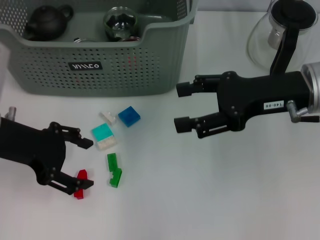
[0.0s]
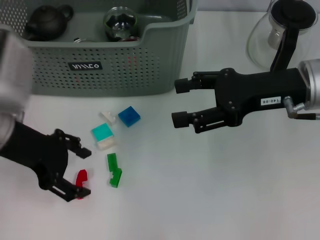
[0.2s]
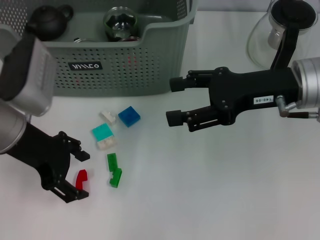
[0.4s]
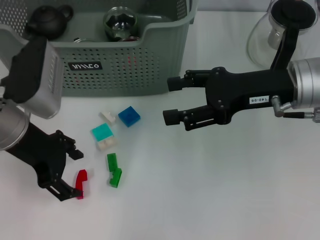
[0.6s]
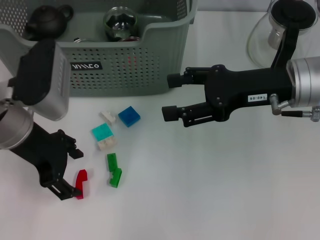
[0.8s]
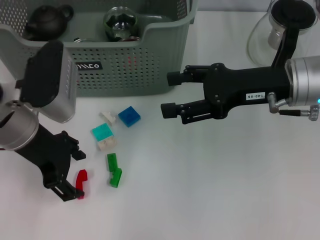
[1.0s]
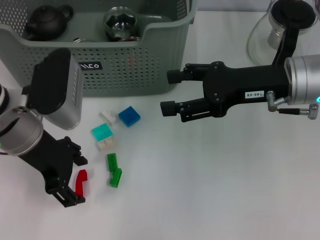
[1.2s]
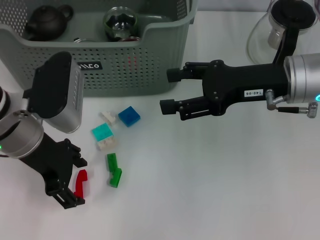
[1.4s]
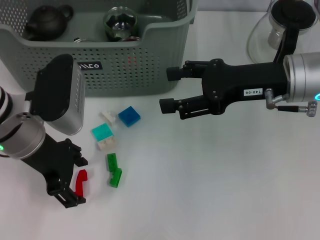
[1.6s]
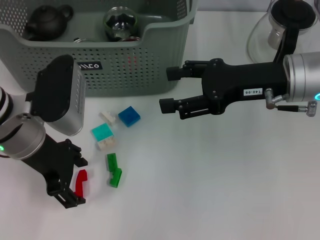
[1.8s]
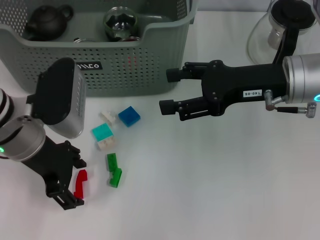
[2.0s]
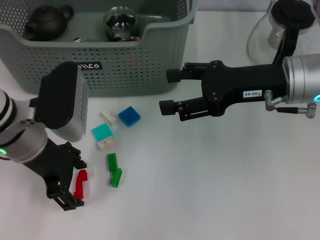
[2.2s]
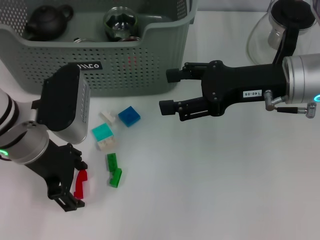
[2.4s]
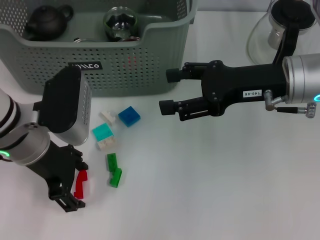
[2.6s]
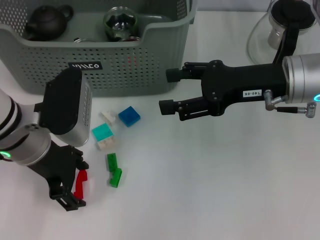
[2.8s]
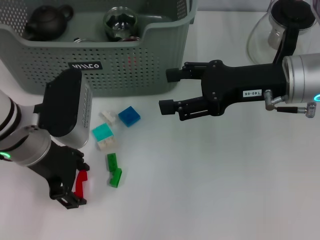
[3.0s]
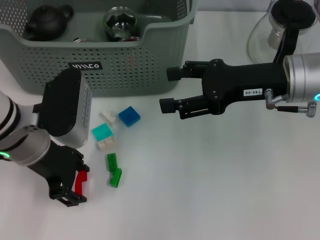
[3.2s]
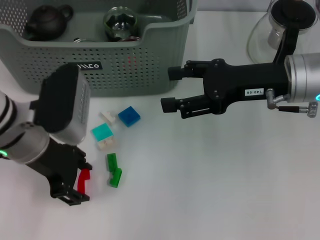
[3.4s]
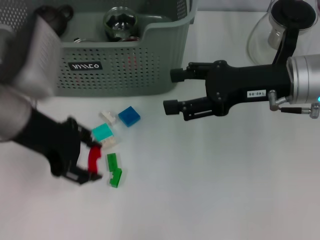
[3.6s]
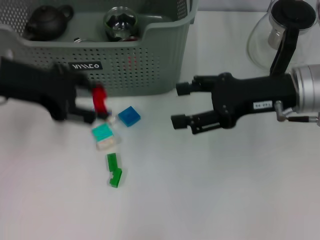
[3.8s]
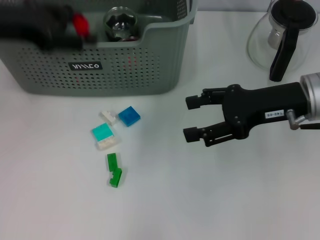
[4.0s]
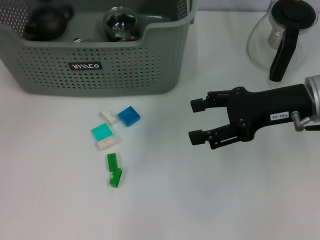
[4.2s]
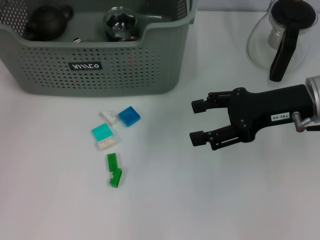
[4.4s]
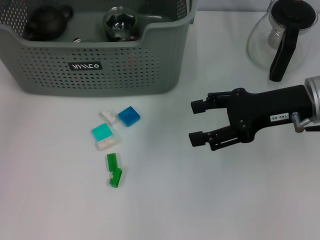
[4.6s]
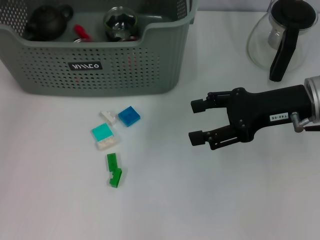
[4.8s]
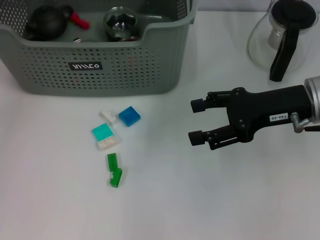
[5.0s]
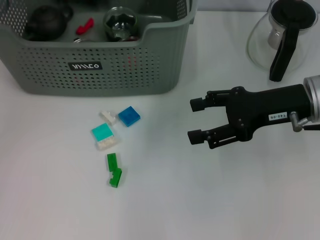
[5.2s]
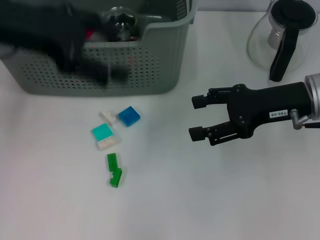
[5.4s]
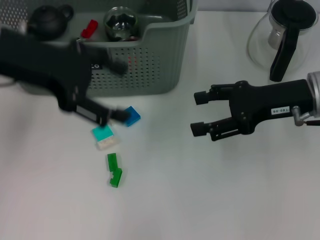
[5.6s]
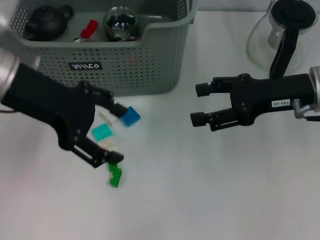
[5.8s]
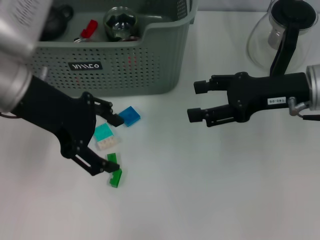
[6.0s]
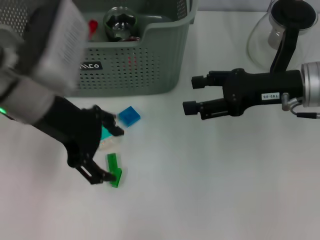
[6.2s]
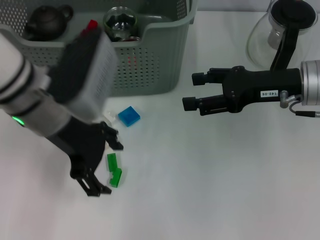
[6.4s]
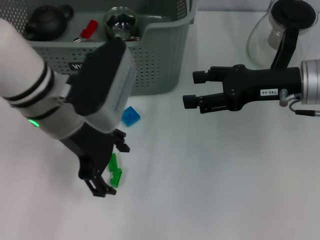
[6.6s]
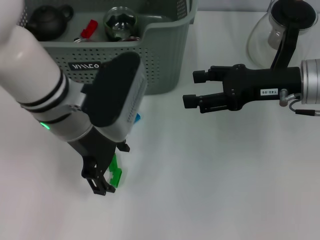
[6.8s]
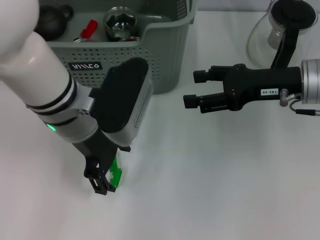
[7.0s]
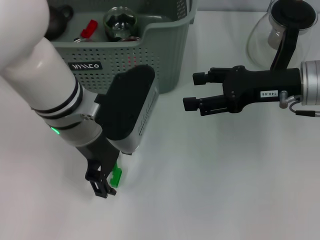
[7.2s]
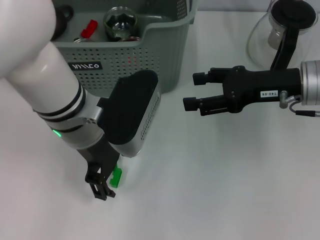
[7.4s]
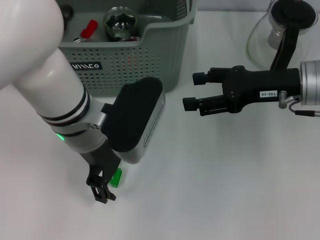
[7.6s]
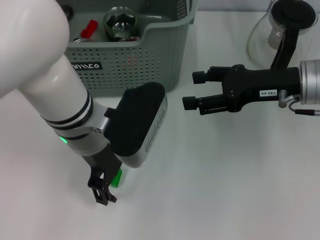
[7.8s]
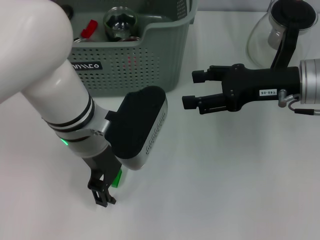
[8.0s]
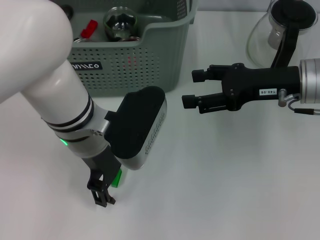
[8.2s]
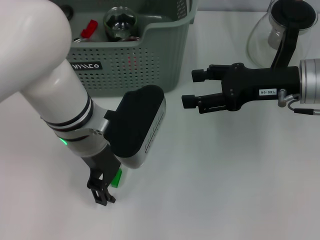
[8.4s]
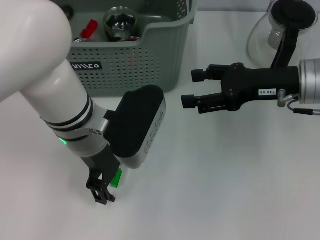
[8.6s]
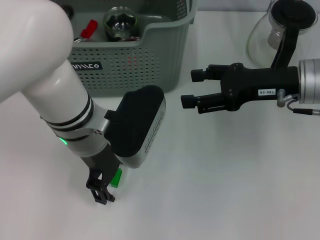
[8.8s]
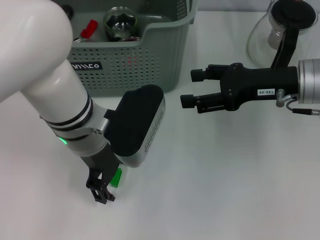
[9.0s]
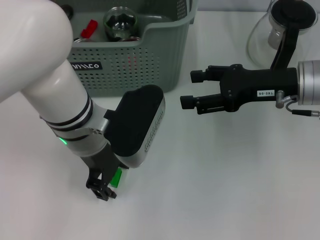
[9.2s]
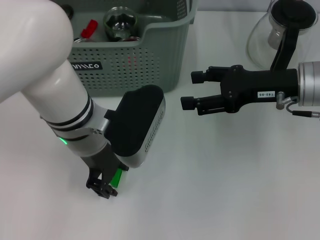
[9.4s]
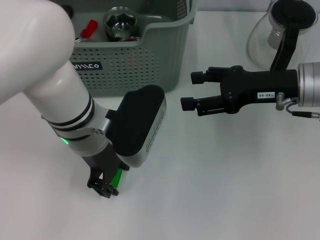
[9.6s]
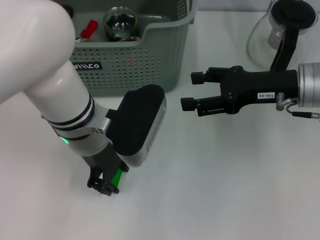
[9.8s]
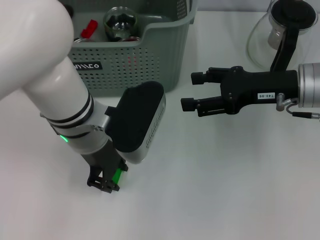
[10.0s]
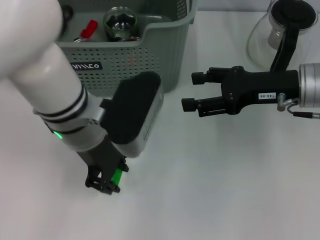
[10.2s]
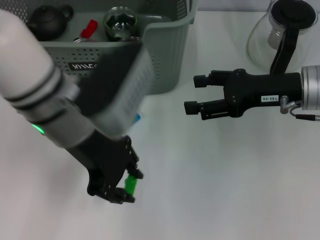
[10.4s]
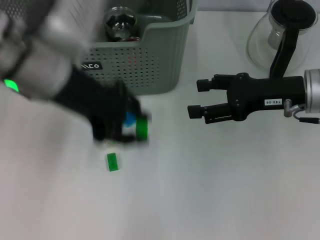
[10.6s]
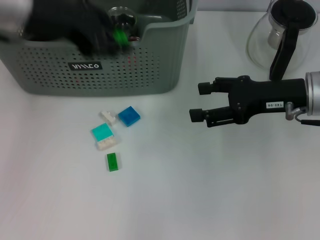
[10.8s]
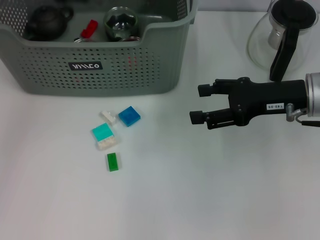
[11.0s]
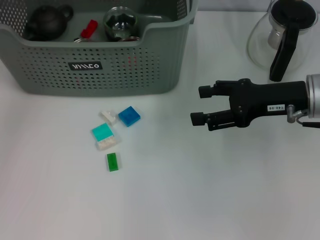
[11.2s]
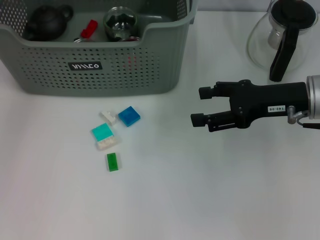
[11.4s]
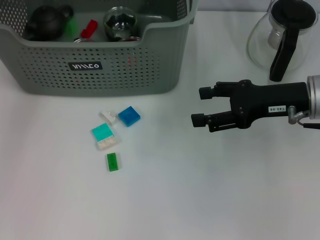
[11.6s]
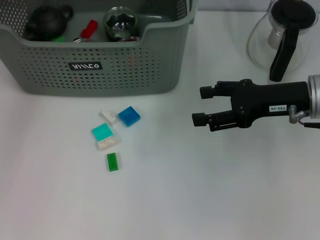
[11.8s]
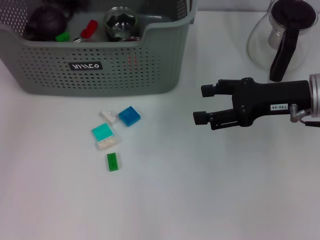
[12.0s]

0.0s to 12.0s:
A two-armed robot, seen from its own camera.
Task of the whole recording: pick up the teacup on the table and place it into the storage bin, pick up the block on the table and place it into the storage bin.
Step, 0.0s to 3.2s: Grasp the red block with left gripper.
Step, 3.4s to 5.0s: Place the red block in the storage box with left gripper.
Step, 5.2s to 9.8s: Grasp the green block with left gripper.
Step, 10.0s to 11.6s: Place the green block in the storage box with left gripper.
0.0s to 1.6s: The left gripper travels to the right by roughly 5 cm.
1.6s to 3.0s: There are only small adjustments of the grippers.
3.0s to 4.4s: The left gripper goes about 20 cm forward, upward and to the left.
4.4s to 6.0s: The left gripper heads backward and to the right, covering some 15 cm.
6.0s to 7.6s: The left gripper goes about 10 cm to the right and downward.
7.6s to 9.0s: Both grippers stay about where they are.
9.0s to 10.4s: The left gripper moves upward, roughly 5 cm, and closes its fingers.
10.4s to 12.0s: The left gripper is displaced to the left, forward and upward by some 20 cm, and opens.

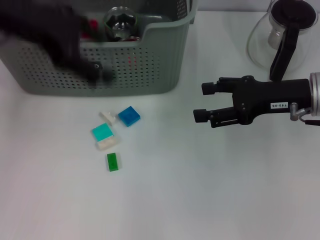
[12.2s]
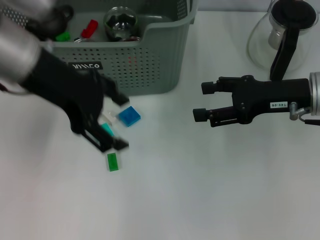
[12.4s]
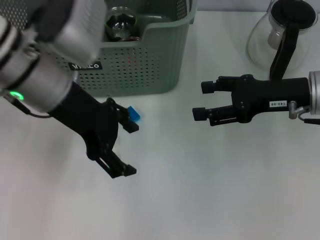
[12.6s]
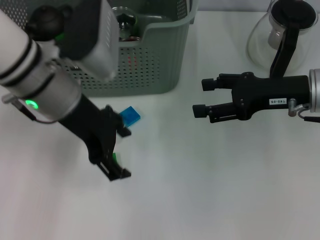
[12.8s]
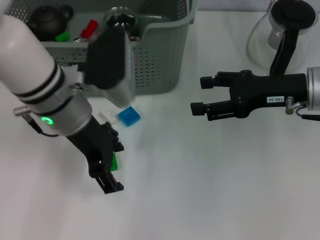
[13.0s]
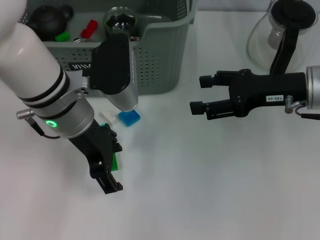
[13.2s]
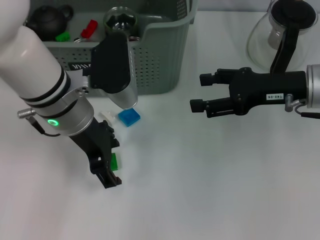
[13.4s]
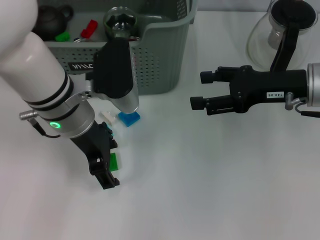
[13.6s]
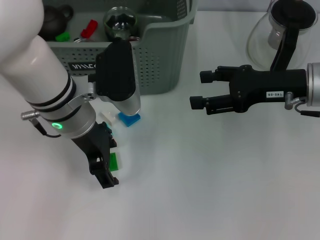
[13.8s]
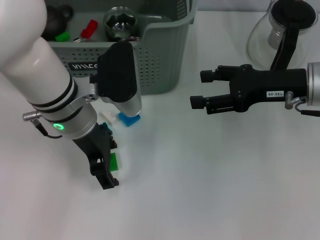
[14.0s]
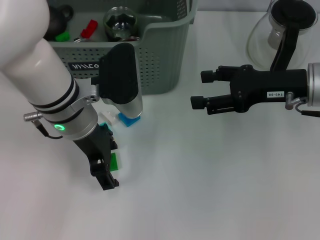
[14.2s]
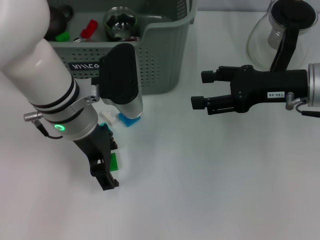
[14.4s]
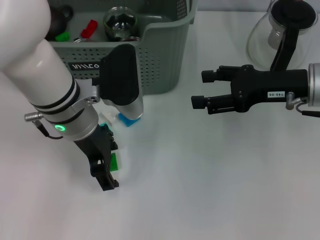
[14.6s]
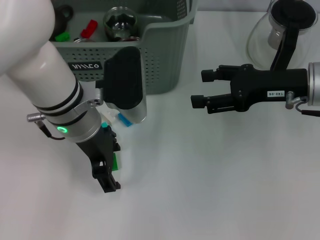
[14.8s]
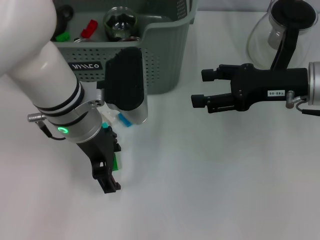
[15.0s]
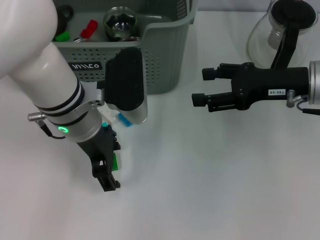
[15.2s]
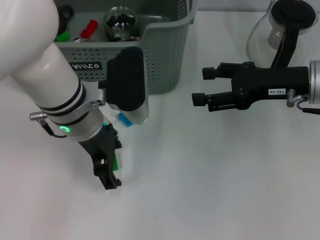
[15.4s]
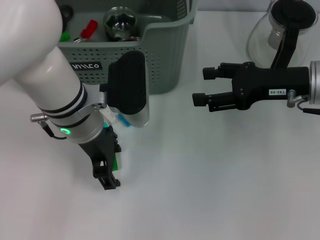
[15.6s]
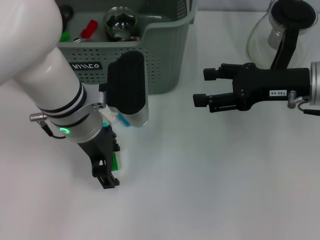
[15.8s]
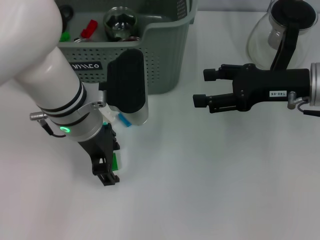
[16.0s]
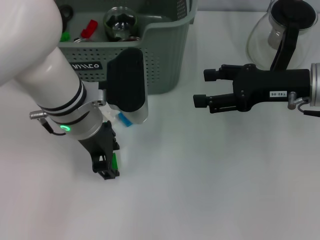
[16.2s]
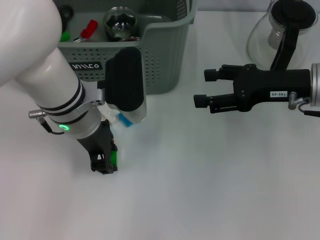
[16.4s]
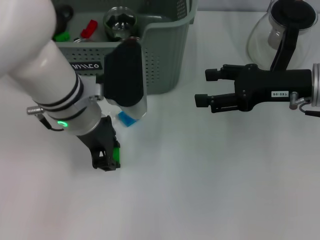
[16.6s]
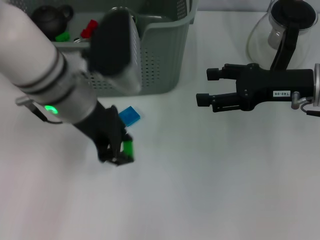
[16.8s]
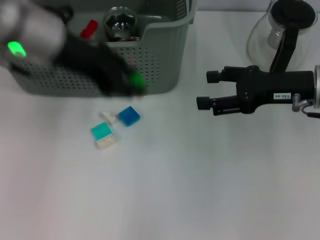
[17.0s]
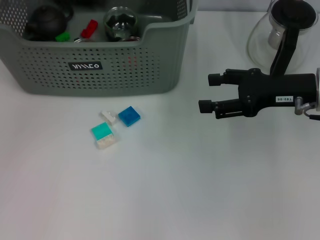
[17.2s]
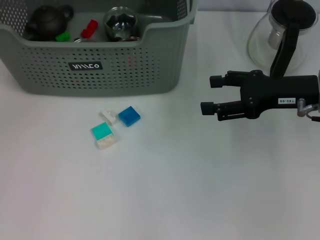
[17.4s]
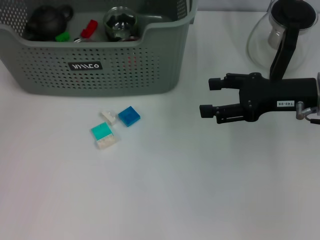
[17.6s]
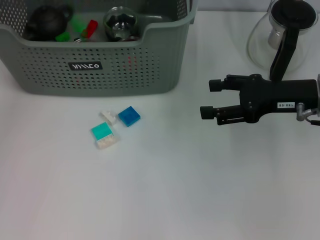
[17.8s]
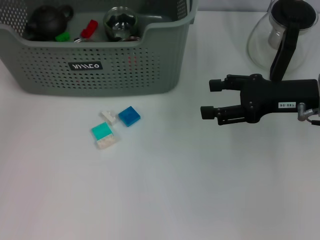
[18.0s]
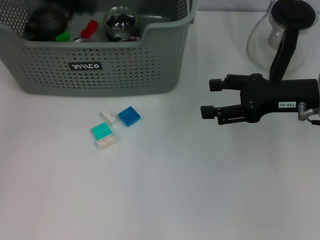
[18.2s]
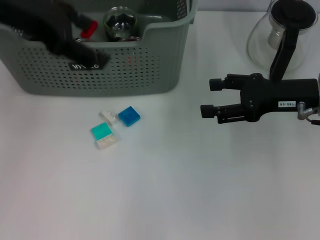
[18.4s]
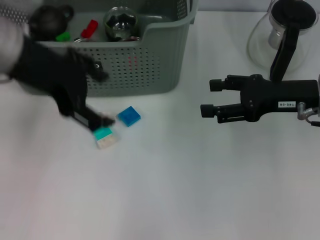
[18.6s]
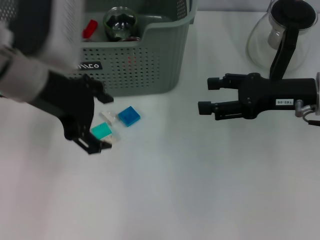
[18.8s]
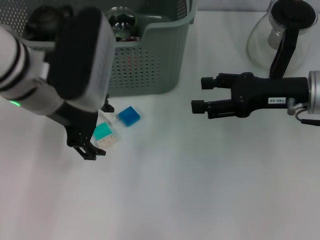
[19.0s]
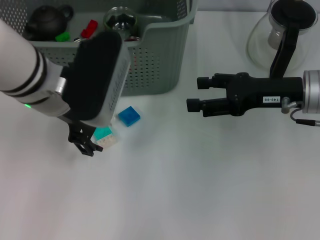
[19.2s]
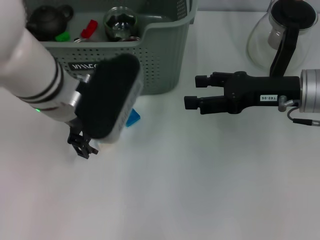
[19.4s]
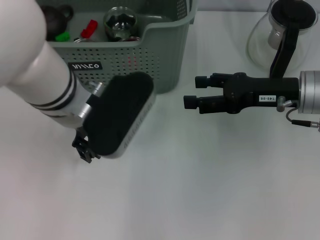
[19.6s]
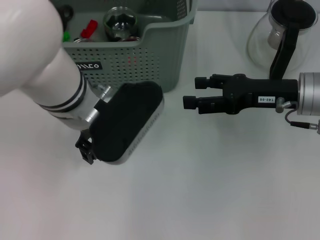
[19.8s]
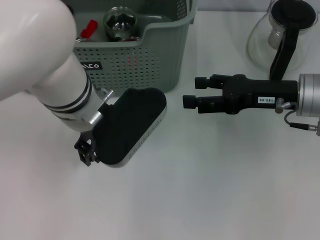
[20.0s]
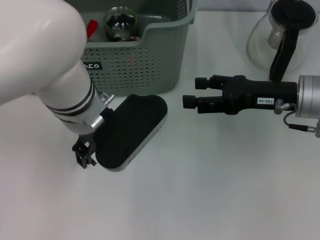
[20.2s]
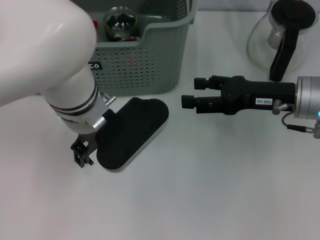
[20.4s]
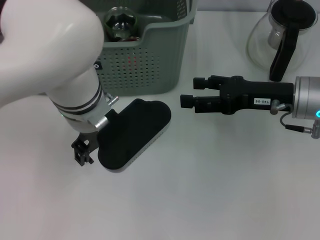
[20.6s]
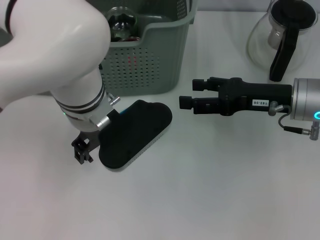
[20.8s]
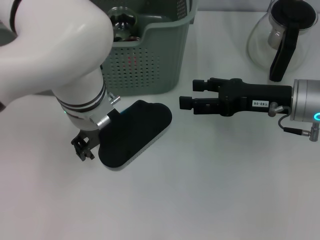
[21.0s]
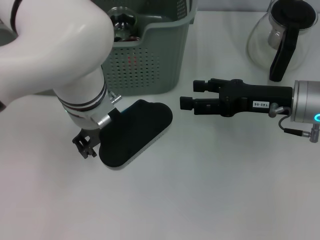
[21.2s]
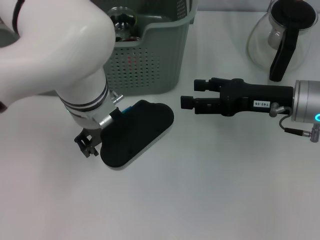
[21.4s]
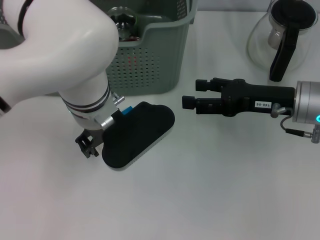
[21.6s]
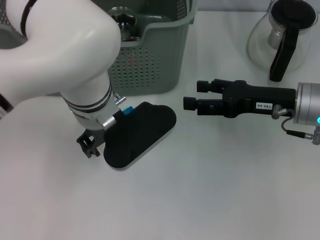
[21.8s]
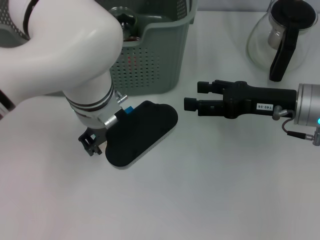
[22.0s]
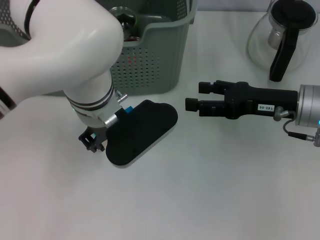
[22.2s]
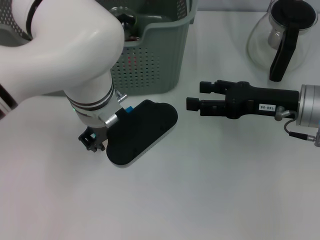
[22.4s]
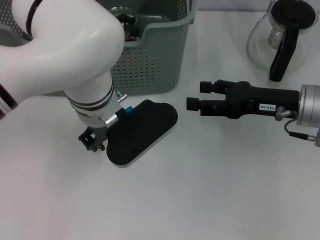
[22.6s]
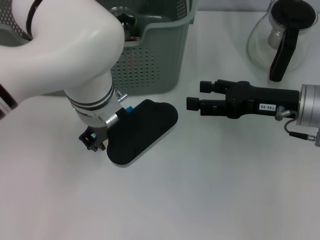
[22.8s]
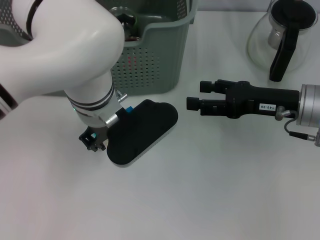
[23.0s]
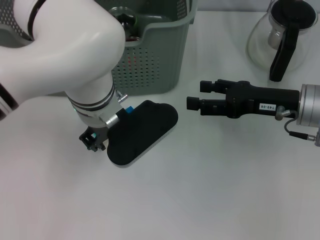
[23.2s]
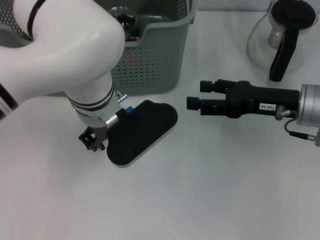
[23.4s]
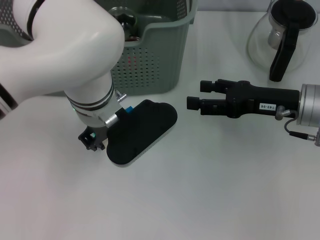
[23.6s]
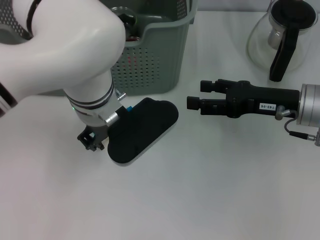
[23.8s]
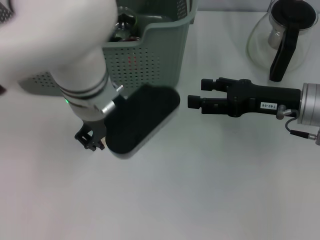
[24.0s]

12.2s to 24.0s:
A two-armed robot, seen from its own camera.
Task of the whole recording: pick up the teacup on the table and place it into the storage bin, pick up the block on the table and place it into the storage bin.
Step, 12.2s to 16.2s: Grasp the green block with left gripper.
Step, 16.6s to 18.0s: Place the green block in the storage box with left gripper.
Step, 18.2s to 23.4s: Grasp the white block with left gripper.
12.2s to 13.6s: The left gripper moves downward and to the right, some 15 cm.
13.6s to 15.2s: Both grippers stay put.
15.2s to 16.6s: The left gripper closes its fingers.
16.6s to 18.2s: The left gripper is displaced upward and to the left by about 20 cm, and opens its fingers.
18.2s to 19.6s: The left gripper goes roughly 20 cm to the right, downward and backward.
21.0s to 22.6s: The left gripper closes up.
22.6s to 24.0s: The grippers move only a little.
